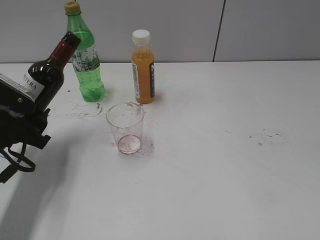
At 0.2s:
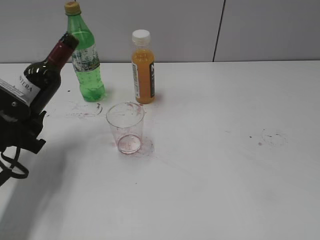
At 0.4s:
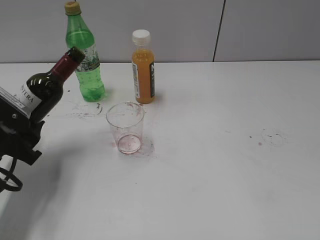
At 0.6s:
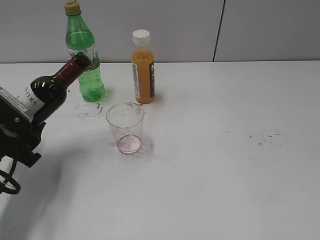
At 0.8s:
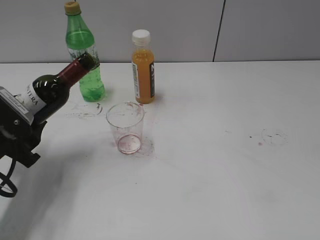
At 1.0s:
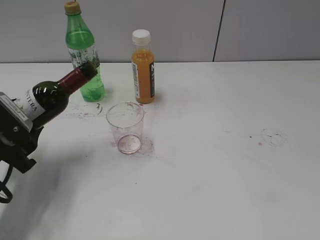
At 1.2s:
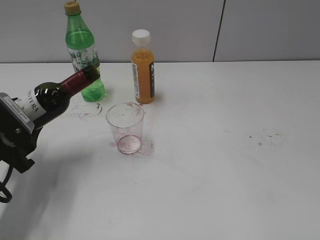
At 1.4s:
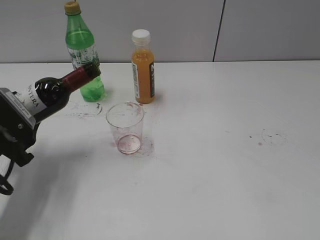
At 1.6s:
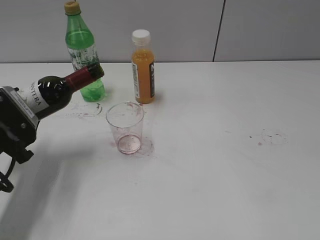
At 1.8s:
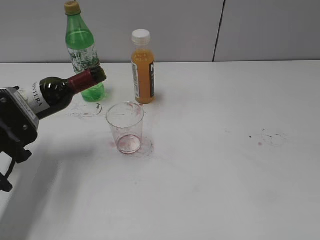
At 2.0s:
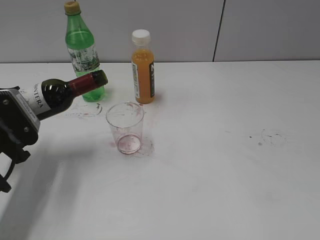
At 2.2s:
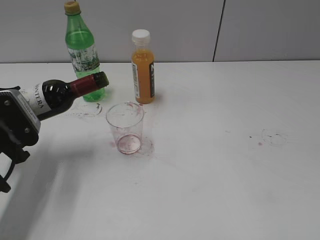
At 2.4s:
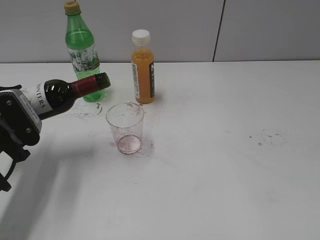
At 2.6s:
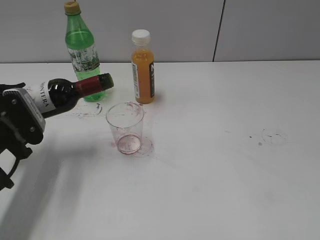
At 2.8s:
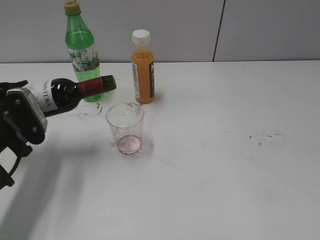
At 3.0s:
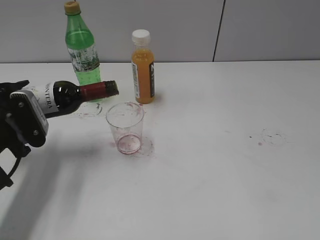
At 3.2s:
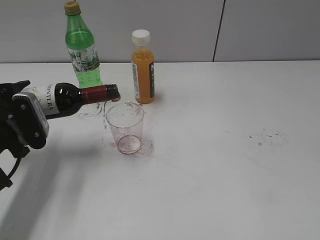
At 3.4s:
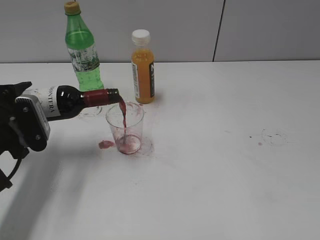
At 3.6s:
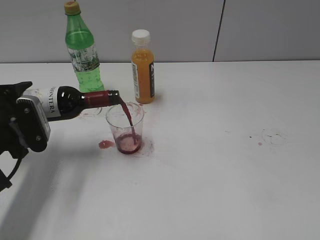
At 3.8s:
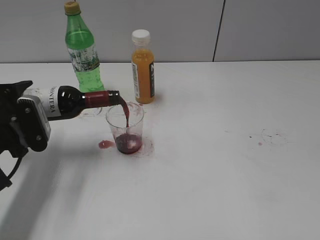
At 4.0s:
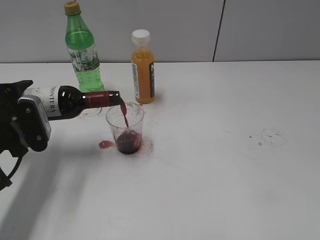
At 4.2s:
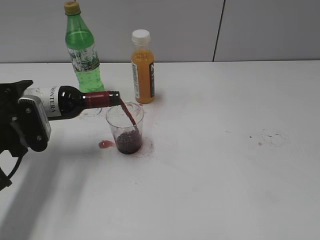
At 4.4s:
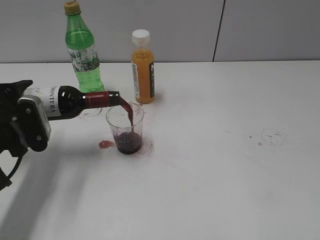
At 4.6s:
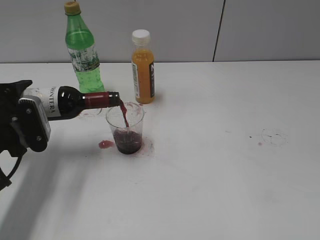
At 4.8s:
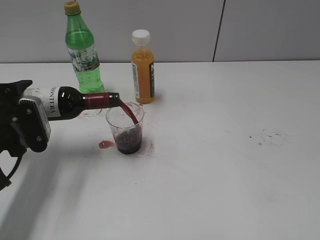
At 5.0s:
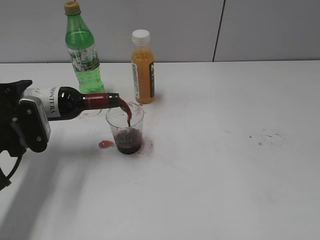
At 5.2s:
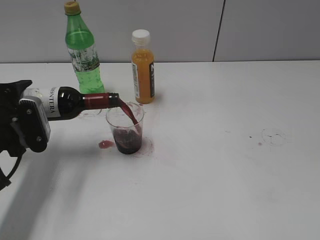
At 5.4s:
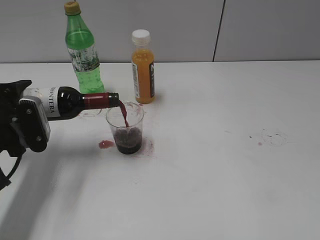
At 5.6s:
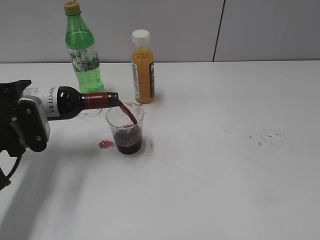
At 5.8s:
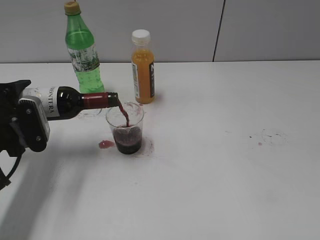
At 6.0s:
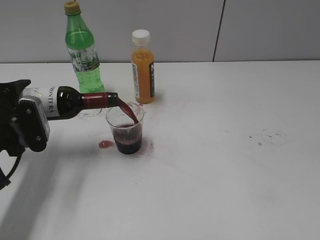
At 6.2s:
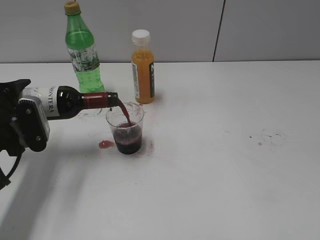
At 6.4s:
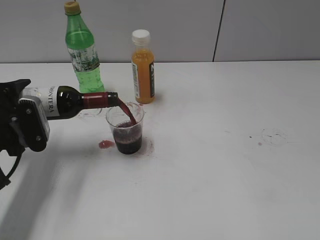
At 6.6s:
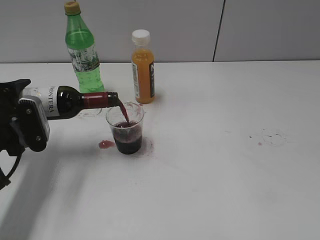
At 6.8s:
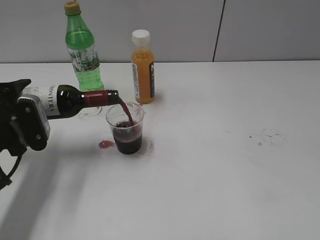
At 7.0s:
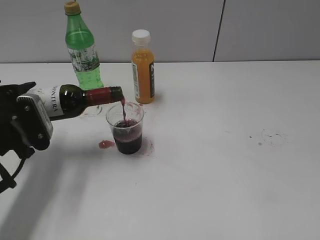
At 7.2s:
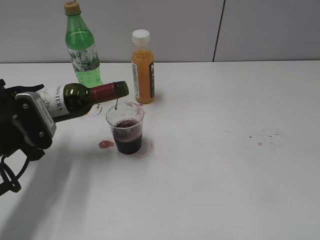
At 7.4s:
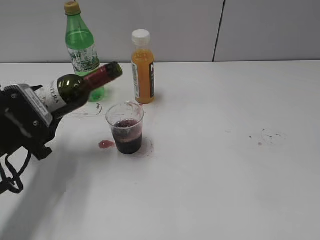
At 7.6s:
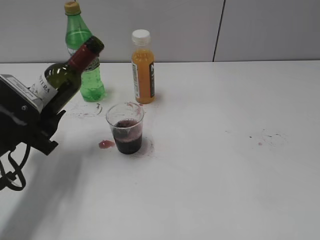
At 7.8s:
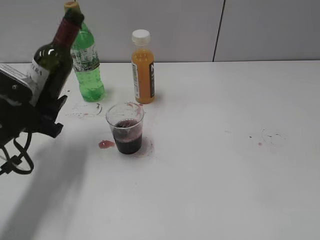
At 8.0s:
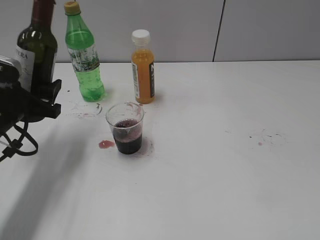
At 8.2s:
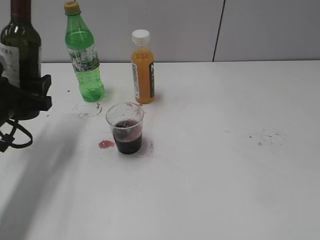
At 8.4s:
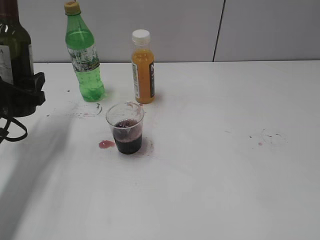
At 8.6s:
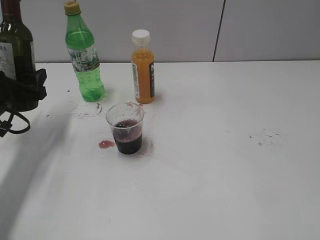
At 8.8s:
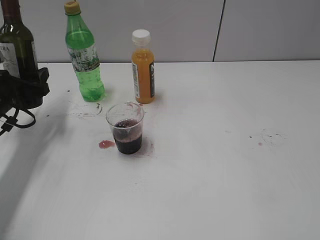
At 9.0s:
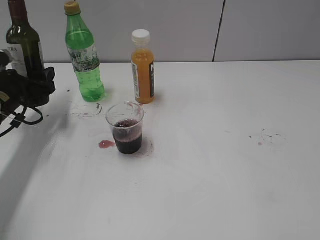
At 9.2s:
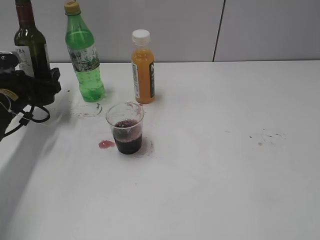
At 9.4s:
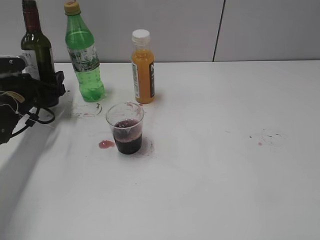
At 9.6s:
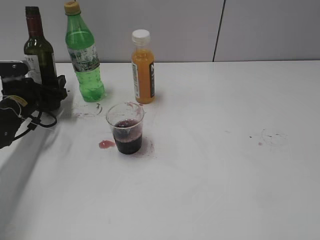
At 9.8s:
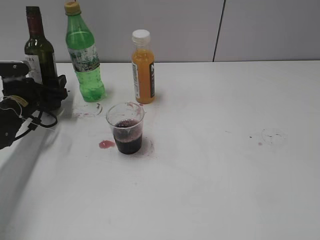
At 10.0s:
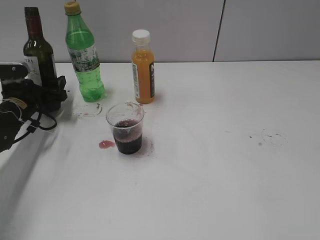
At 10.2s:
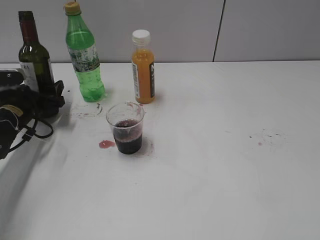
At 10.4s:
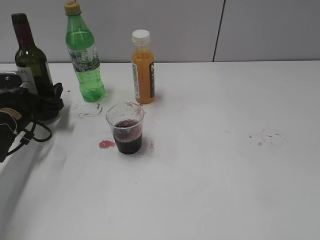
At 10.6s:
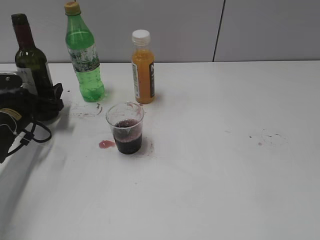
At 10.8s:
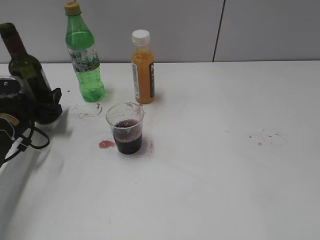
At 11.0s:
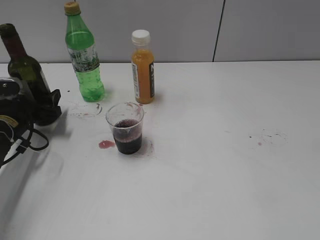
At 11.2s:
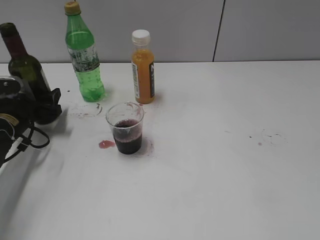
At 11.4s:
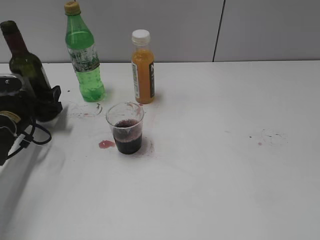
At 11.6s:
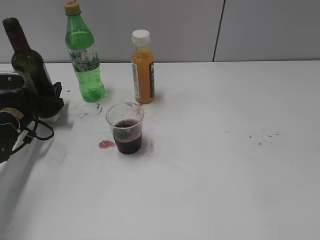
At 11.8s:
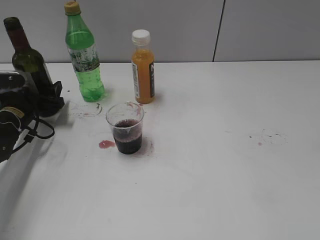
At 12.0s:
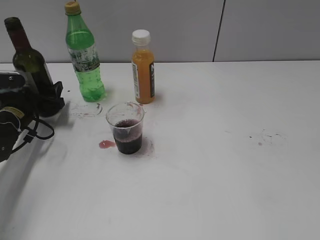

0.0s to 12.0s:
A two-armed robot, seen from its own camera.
Step, 0.0s to 7.2s: Pour the red wine from bottle to cup with left gripper.
1.6s to 3.0s: The grippers stay close to where they were, moving slightly.
3.0s to 4.4s: The grippers stay close to where they were, moving slightly.
4.4s to 6.0s: The two grippers keep their place.
7.6s to 9.0s: The left gripper heads forward, covering approximately 10 cm.
9.0s to 10.4s: The left gripper travels downward by approximately 5 cm.
10.4s to 12.0s: There are only small adjustments of the grippers.

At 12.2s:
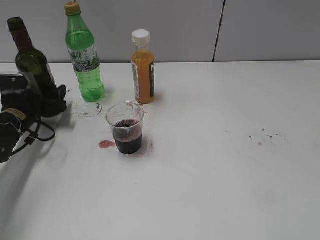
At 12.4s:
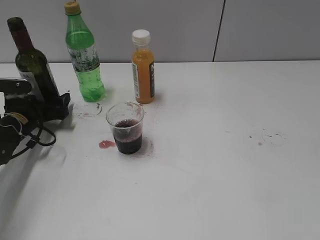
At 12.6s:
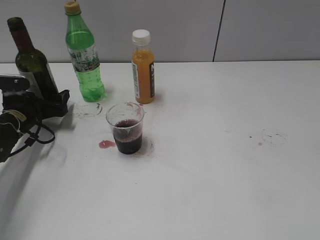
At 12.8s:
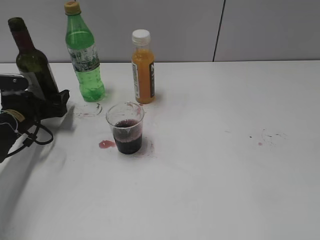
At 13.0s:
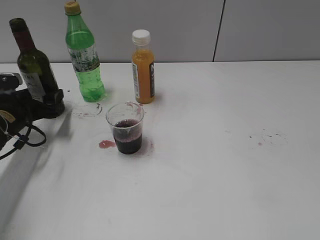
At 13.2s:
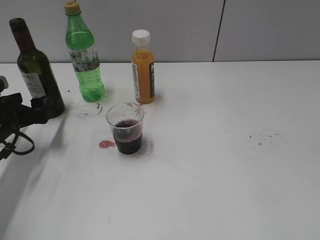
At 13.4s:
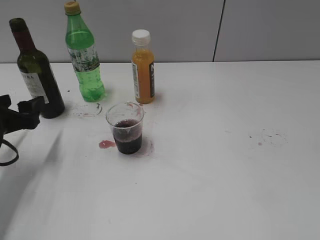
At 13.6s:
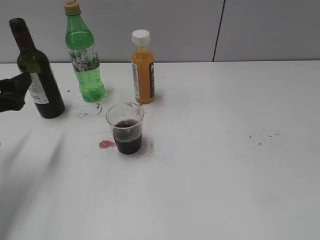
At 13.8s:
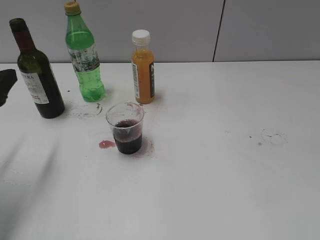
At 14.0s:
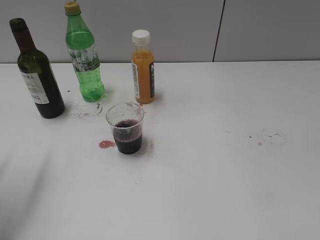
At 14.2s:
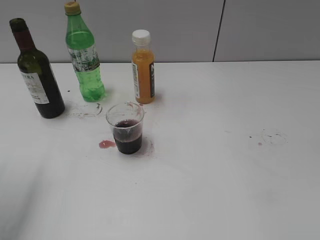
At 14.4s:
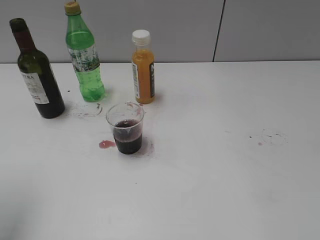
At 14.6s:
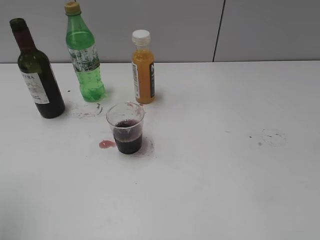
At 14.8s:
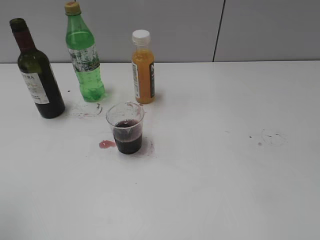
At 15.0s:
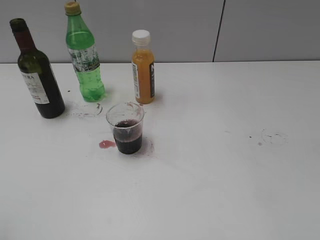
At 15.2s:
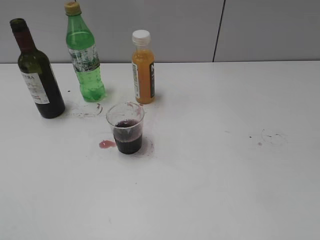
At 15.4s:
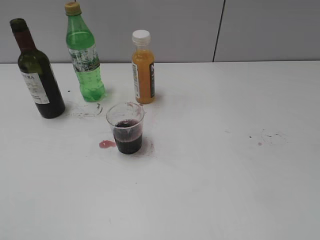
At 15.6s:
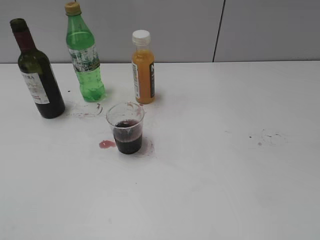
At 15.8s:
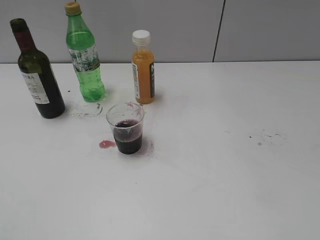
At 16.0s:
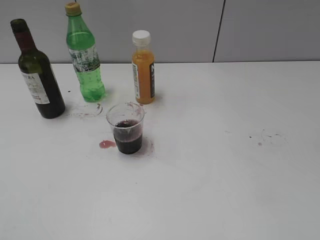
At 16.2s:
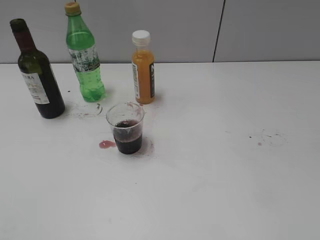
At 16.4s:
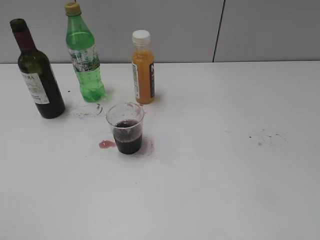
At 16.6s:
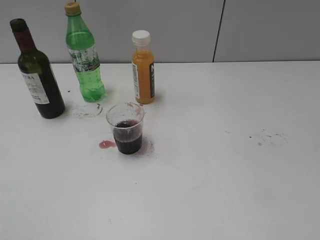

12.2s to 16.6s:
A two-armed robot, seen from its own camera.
12.2s to 13.6s: The left gripper travels backward and upward by approximately 15 cm.
13.6s to 15.2s: The left gripper is displaced backward and upward by some 25 cm.

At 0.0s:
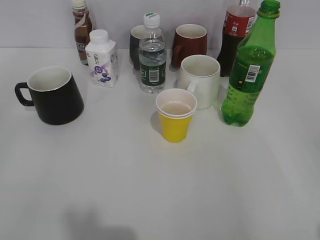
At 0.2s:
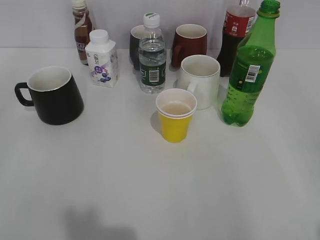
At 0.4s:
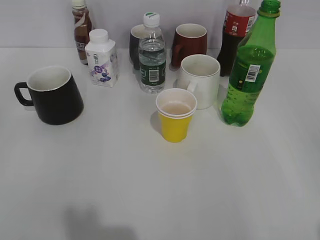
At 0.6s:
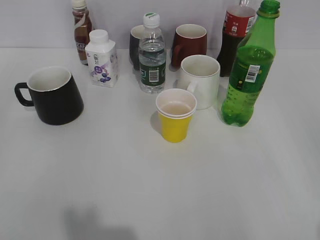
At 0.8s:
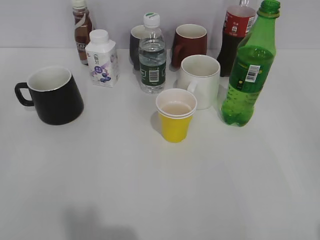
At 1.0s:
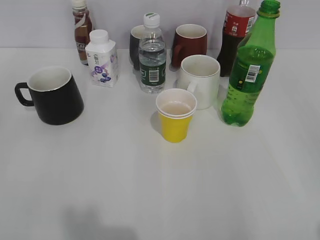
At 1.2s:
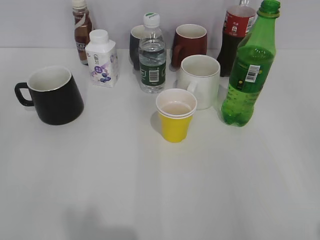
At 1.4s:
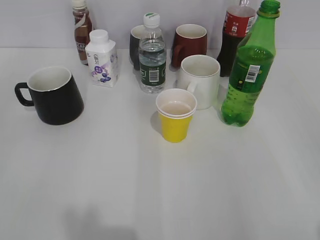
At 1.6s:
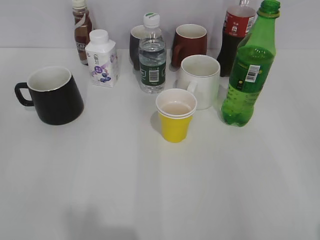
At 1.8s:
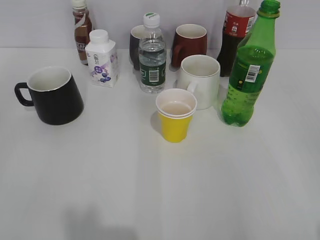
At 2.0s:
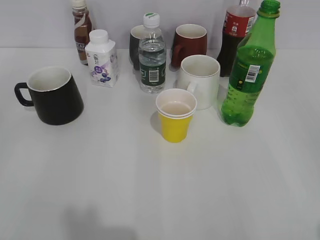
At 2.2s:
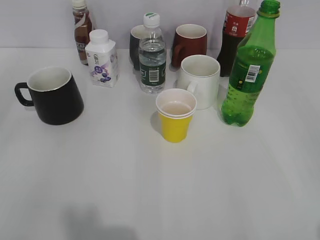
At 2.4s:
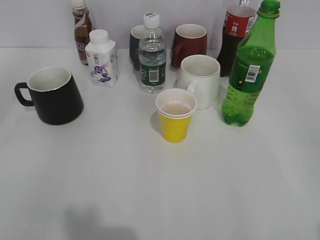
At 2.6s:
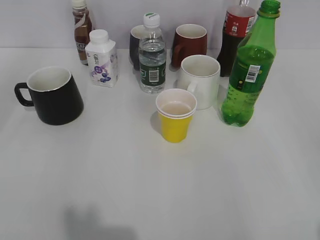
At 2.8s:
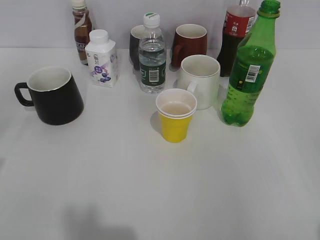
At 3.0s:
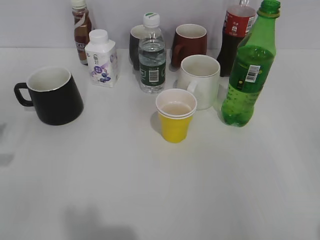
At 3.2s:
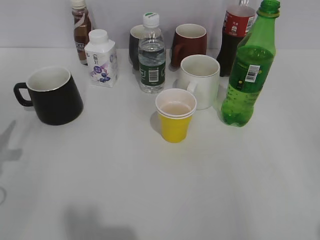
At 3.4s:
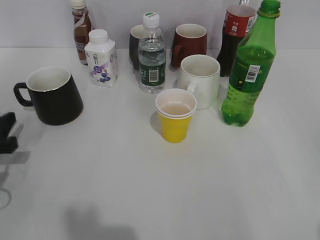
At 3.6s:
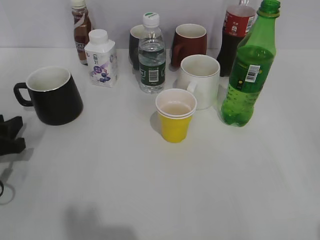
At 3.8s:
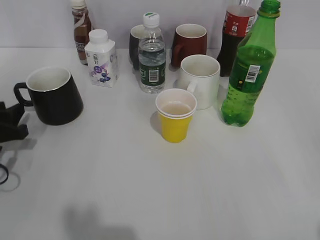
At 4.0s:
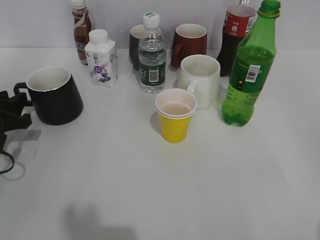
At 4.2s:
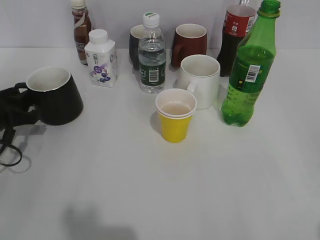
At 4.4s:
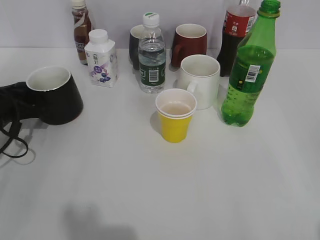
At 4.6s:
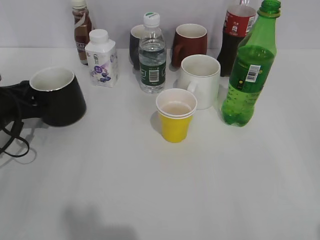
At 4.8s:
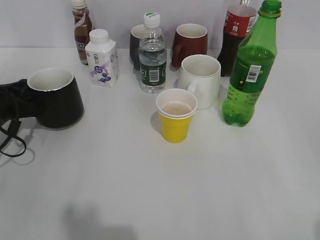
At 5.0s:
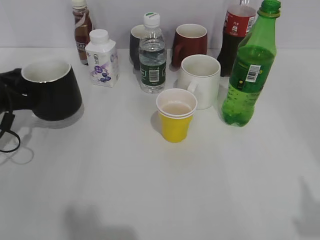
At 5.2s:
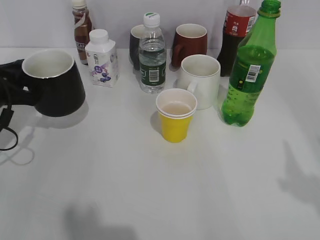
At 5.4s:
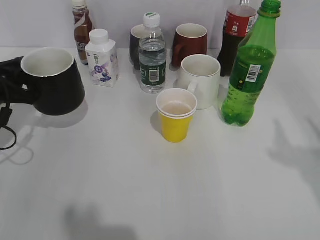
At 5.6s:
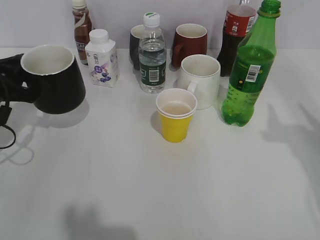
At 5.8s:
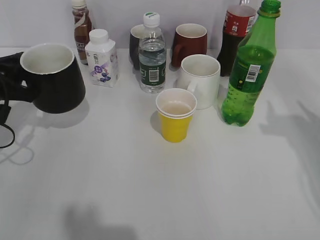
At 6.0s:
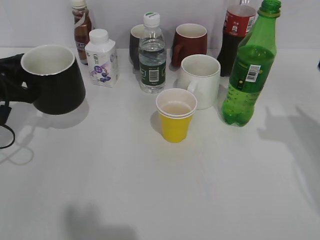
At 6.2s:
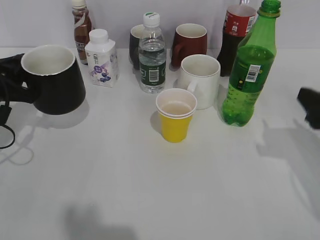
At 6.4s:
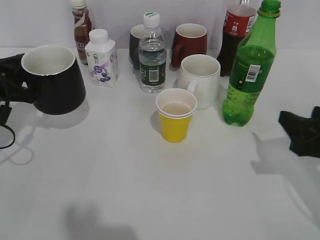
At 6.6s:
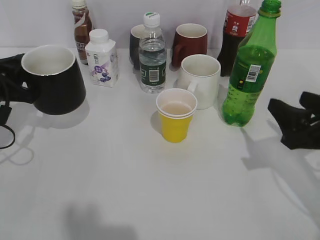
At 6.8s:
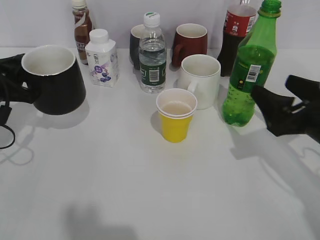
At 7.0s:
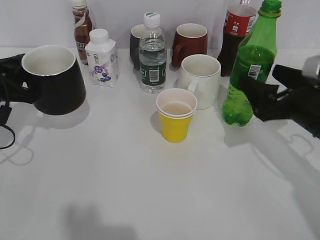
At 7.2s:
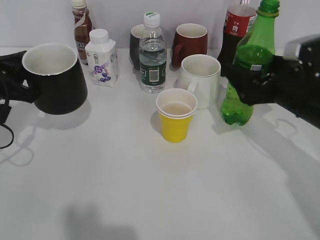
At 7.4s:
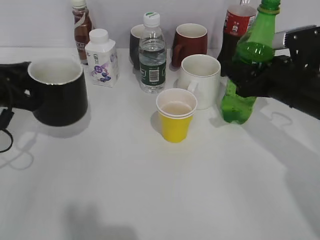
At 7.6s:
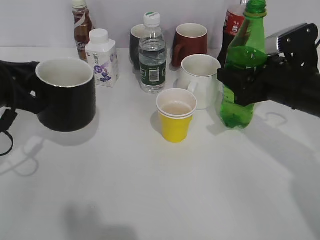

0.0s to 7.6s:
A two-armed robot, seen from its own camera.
Step, 2.0s to 4.4s: Grasp the black cup with left gripper.
Step, 4.8s to 5.6s: Lift the black cup with left gripper.
Step, 6.0s to 7.4s: Grasp the bottle with sprite with right gripper.
3.0s to 4.6s: The left gripper heads forward and downward, covering approximately 15 cm, and closes its fingers.
4.6s to 6.0s: The left gripper shifts approximately 5 cm upward. The right gripper shifts some 20 cm forward.
6.0s to 7.6s: The right gripper goes about 15 cm to the left, forward and downward, and closes its fingers.
